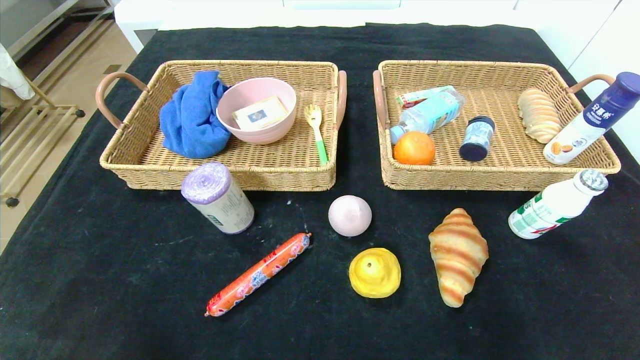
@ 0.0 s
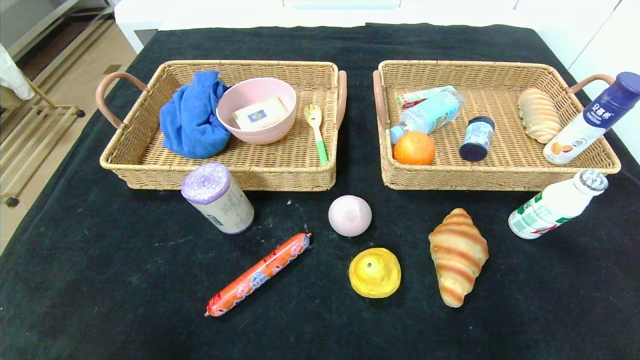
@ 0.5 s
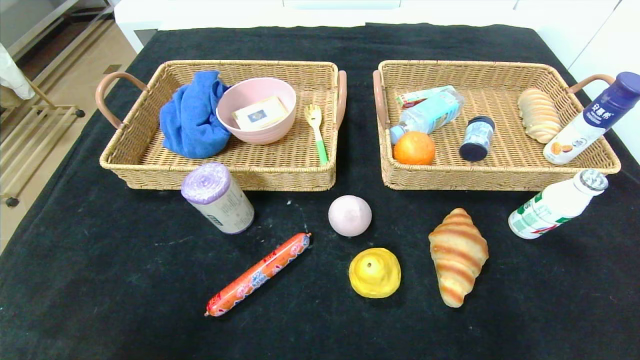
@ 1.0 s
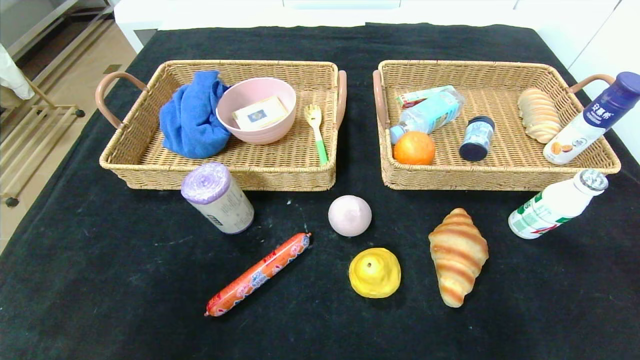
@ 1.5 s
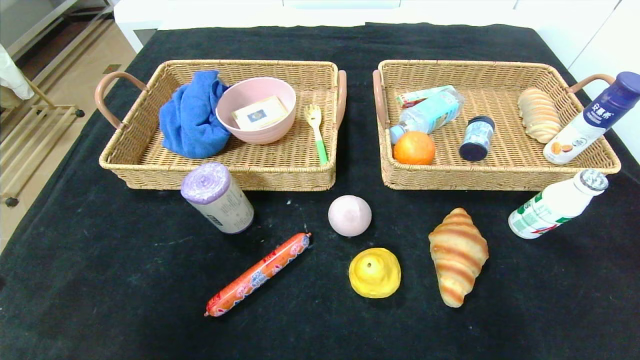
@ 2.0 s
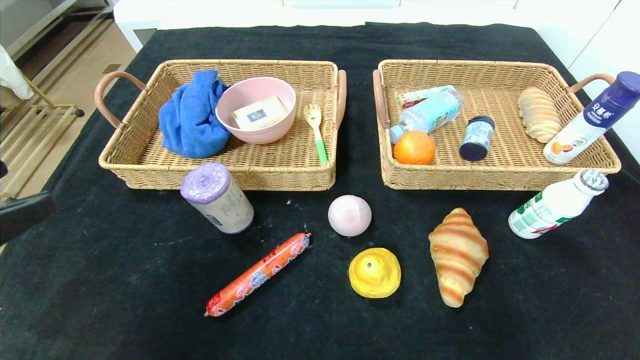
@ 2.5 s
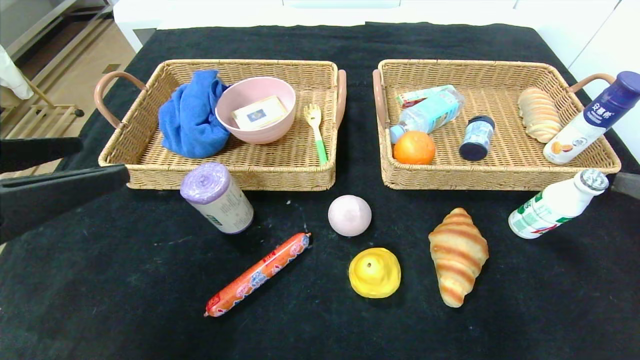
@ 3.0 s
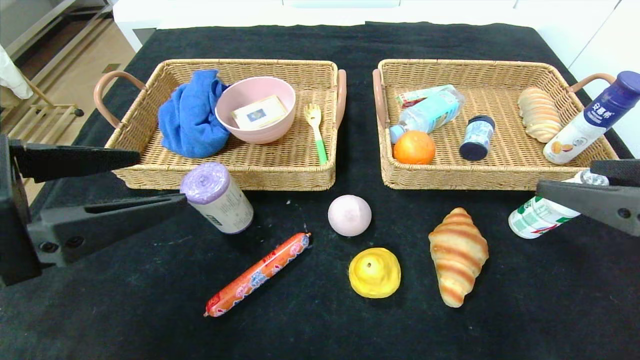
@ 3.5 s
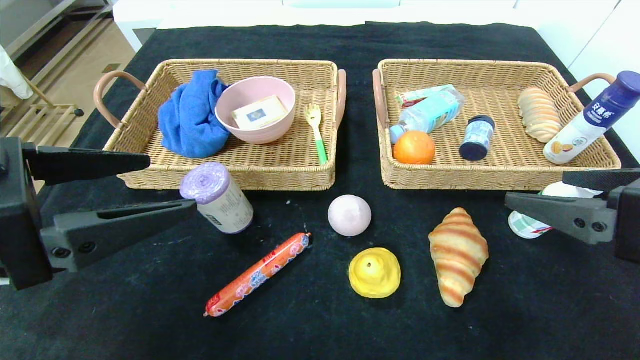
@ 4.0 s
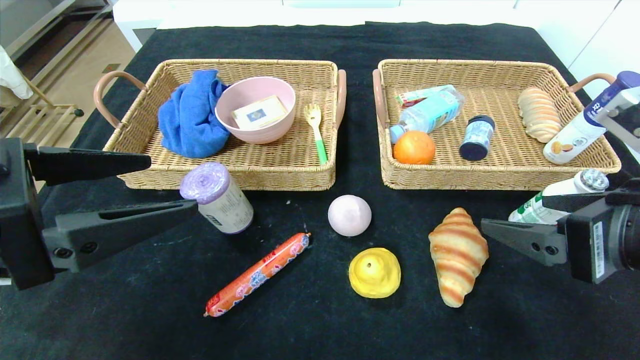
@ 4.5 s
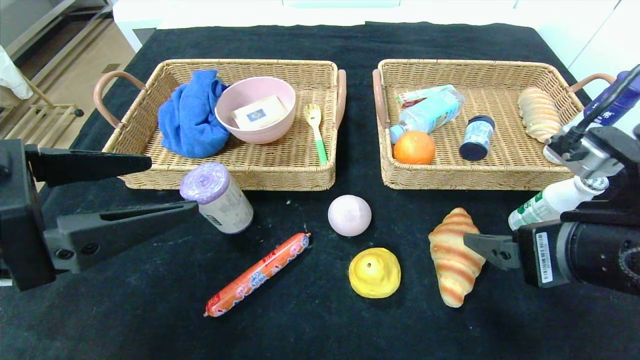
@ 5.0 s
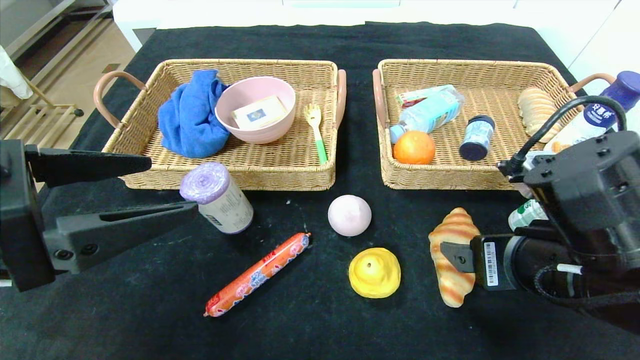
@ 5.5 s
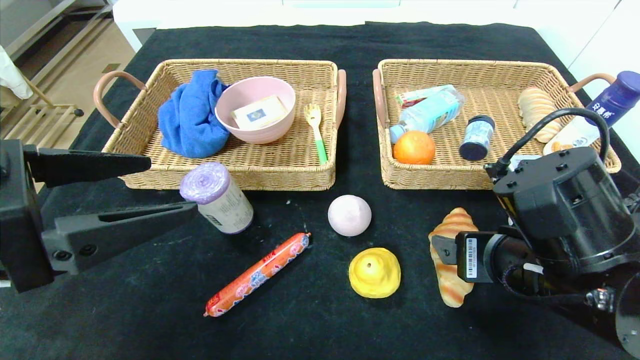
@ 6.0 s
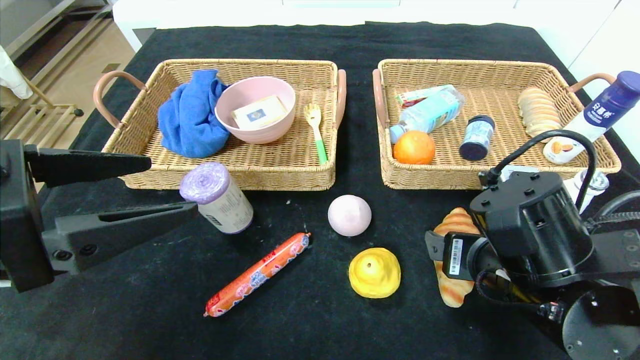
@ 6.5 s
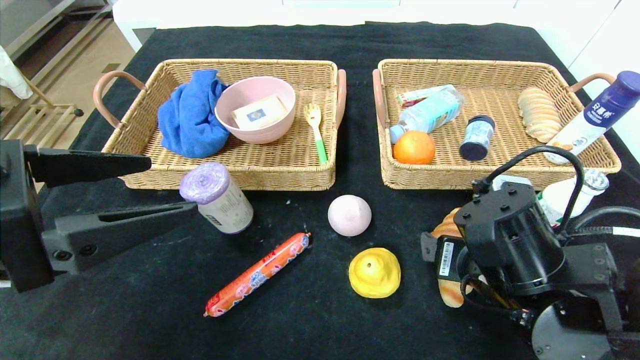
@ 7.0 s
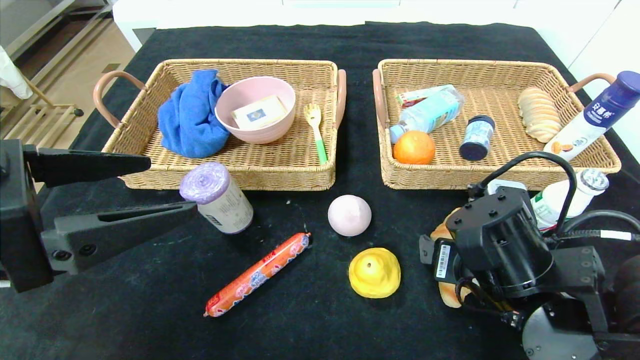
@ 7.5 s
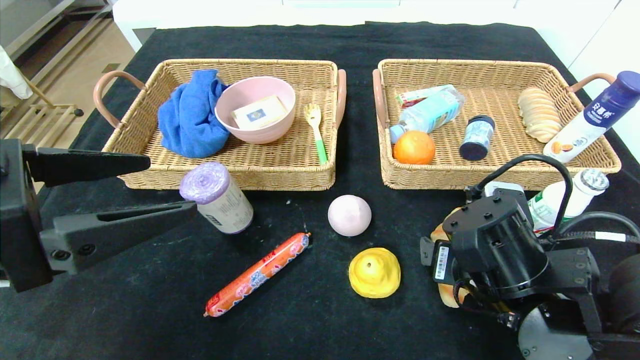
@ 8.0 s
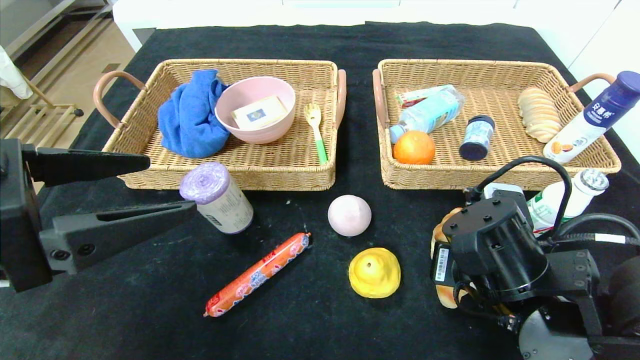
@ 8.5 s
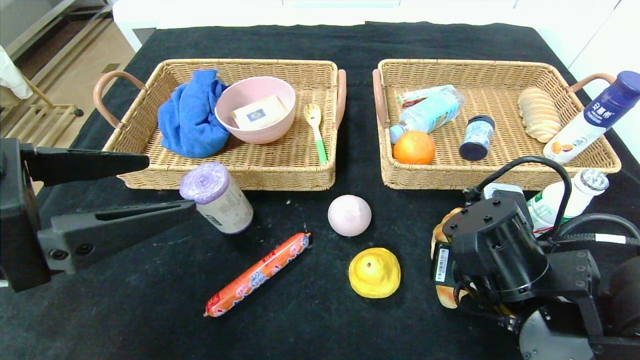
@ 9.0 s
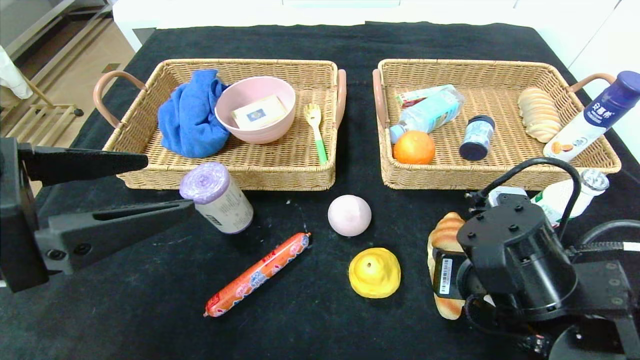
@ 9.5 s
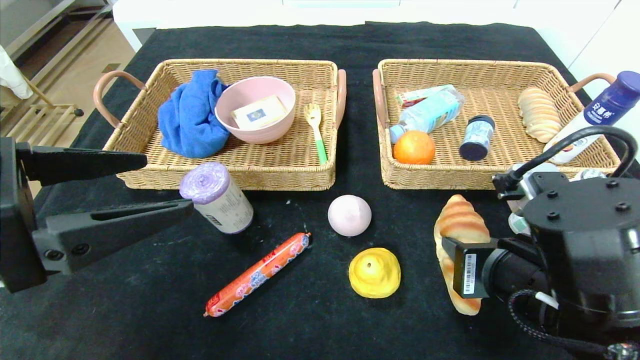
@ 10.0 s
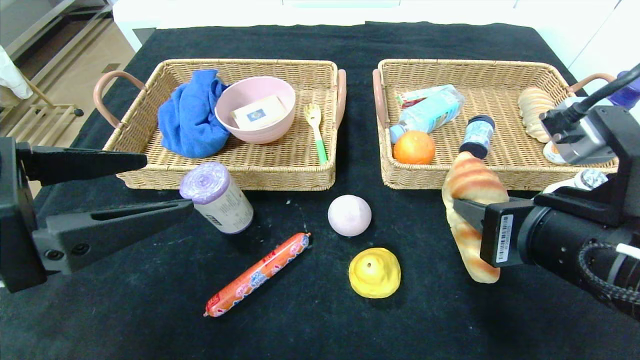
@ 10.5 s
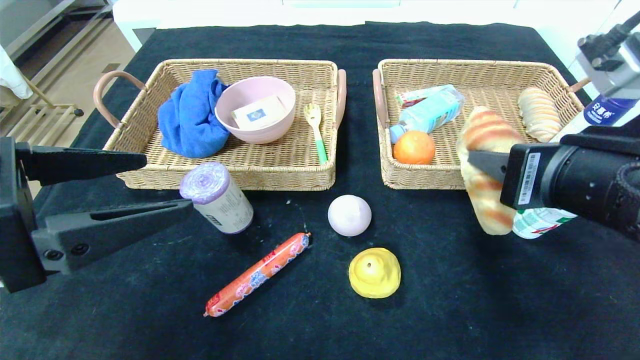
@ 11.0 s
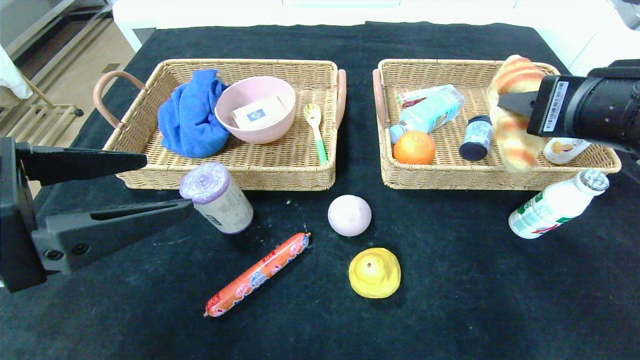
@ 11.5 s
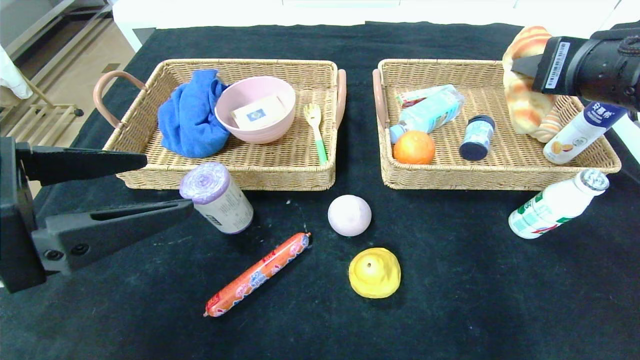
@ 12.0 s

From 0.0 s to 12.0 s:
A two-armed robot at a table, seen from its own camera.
From 2.0 s to 4.0 s: The right gripper goes approximately 15 cm forward and to the left. The left gripper travels forward by about 10 cm.
From 4.0 s to 6.0 s: The right gripper travels to the left and downward by some 10 cm.
From 6.0 s to 8.0 s: The right gripper changes place by approximately 5 cm.
From 8.0 s to 10.0 s: The right gripper shifts by some 5 cm, and closes its fingers.
From 10.0 s to 12.0 s: The right gripper moves upward, forward and to the right, about 20 cm.

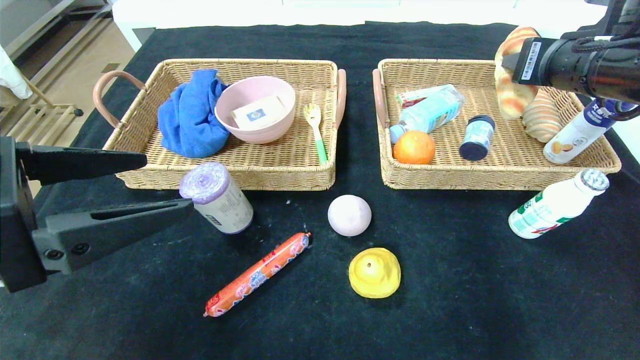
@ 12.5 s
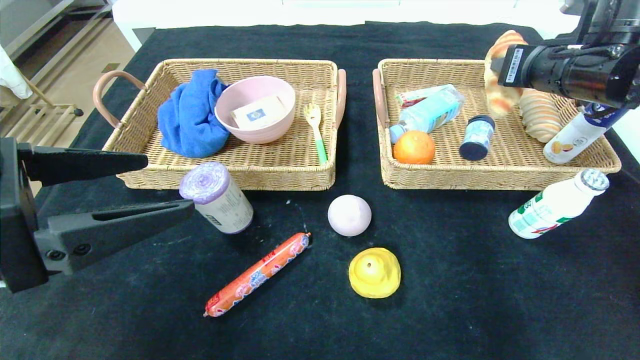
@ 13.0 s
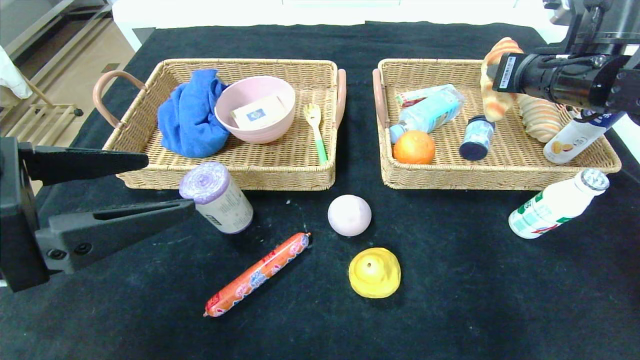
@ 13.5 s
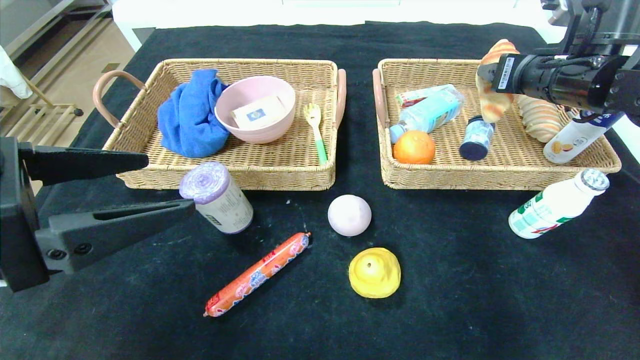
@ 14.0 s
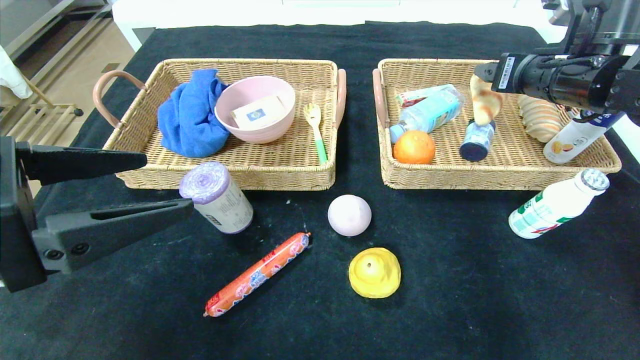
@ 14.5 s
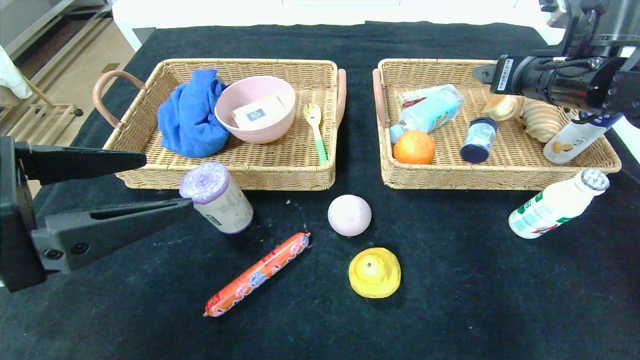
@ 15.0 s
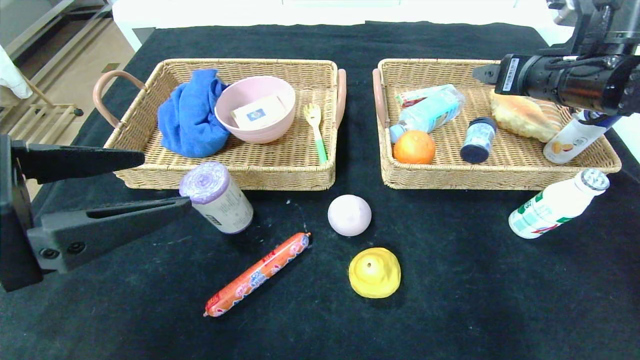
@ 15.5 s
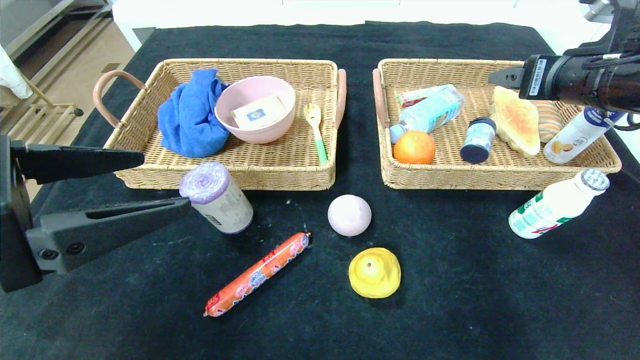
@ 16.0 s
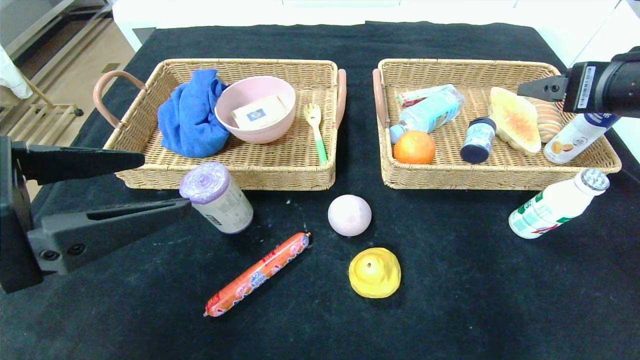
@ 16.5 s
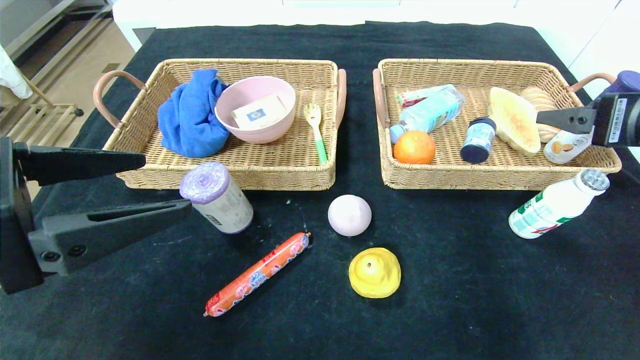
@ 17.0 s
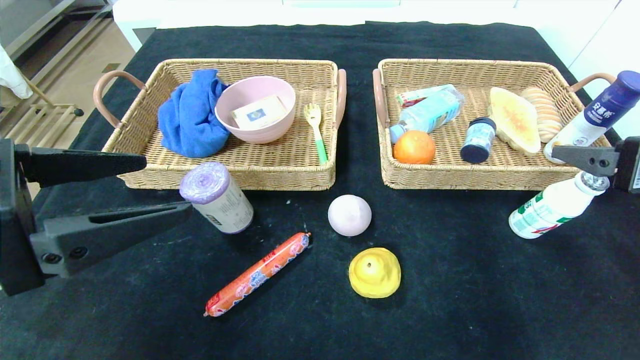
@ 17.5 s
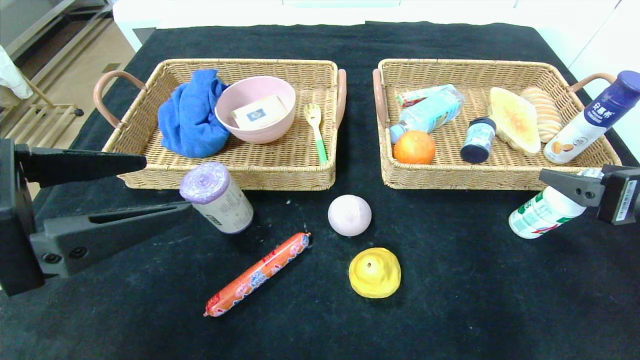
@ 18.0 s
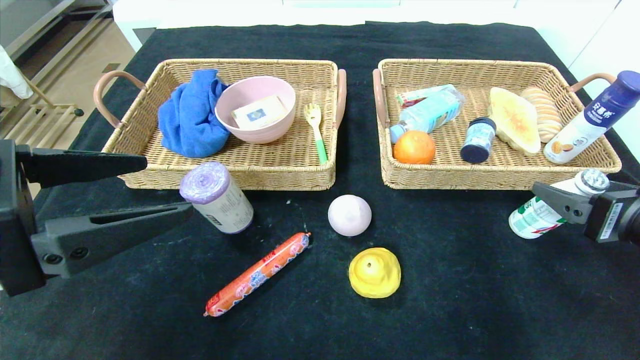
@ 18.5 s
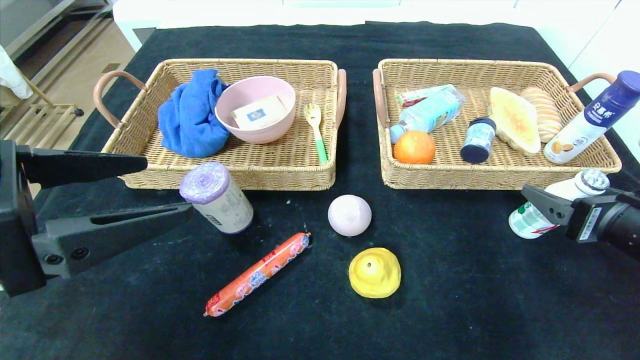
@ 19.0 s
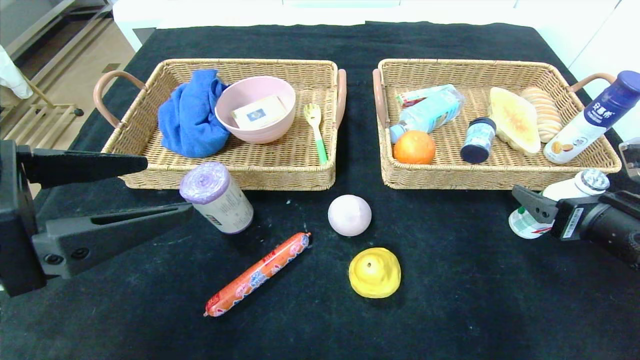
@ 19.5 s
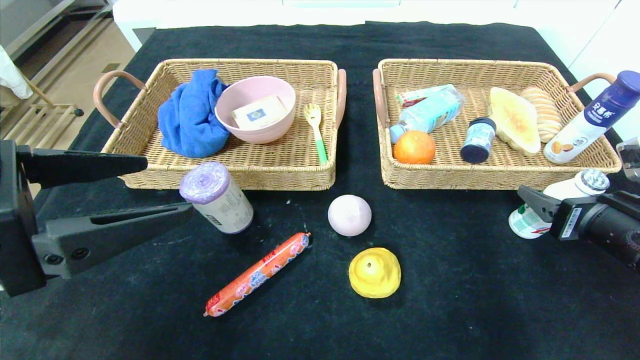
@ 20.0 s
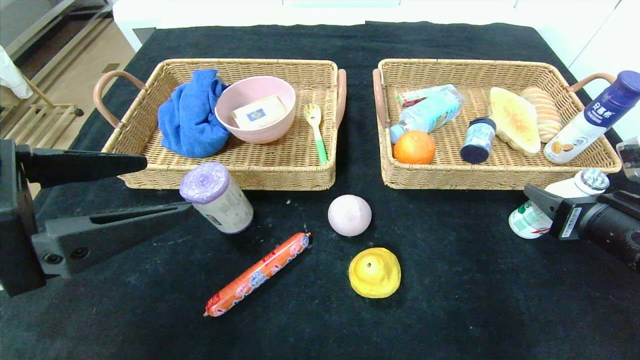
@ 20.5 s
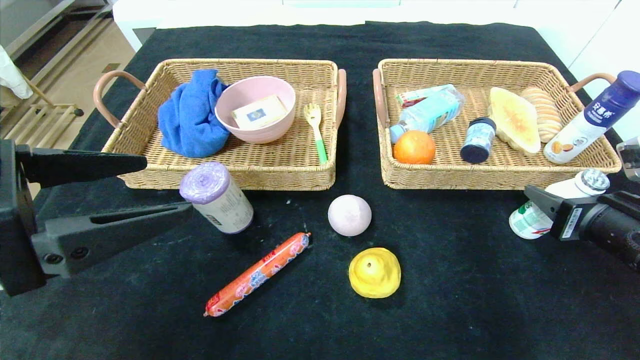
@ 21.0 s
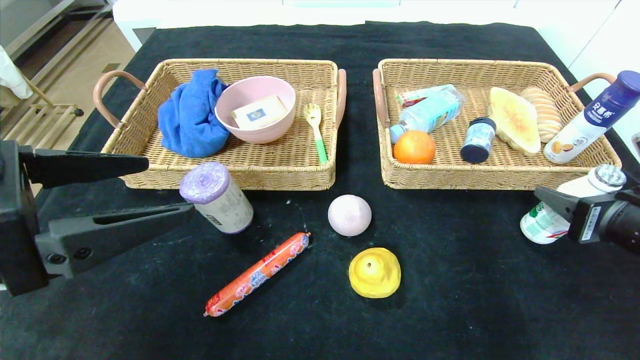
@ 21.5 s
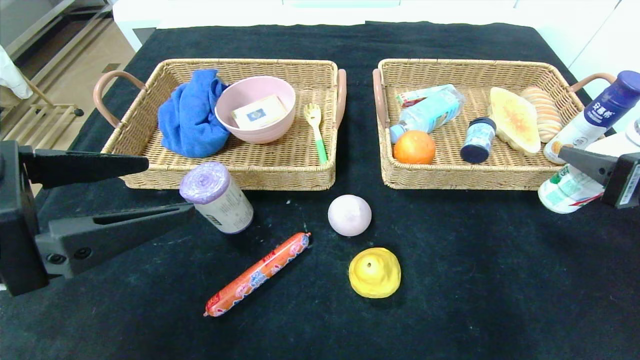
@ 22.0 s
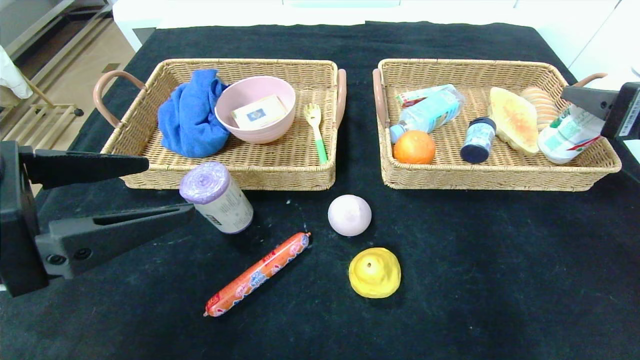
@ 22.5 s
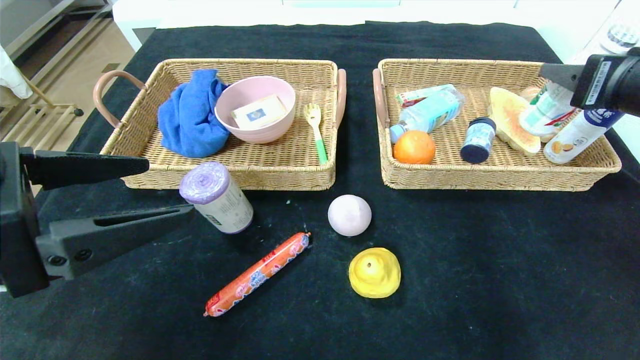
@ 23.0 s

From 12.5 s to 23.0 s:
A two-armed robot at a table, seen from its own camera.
Step, from 12.5 s to 14.5 s: Grasp the croissant and put it in the right basket.
From 12.5 s to 14.5 s: The right gripper travels forward by approximately 5 cm, and opens its fingers.
From 14.5 s to 16.5 s: The right gripper travels backward by approximately 10 cm.
From 16.5 s to 19.0 s: The right gripper goes about 15 cm downward and backward.
From 19.0 s to 21.0 s: The right gripper closes.
From 21.0 s to 23.0 s: The right gripper travels upward by some 15 cm.
